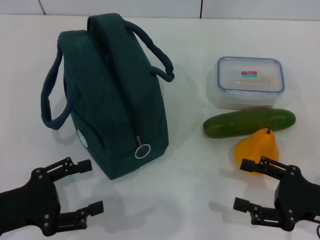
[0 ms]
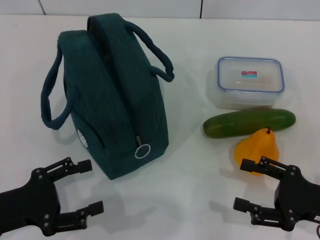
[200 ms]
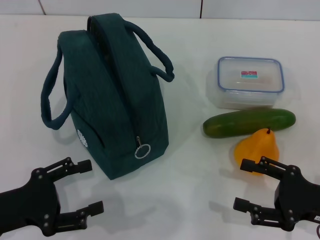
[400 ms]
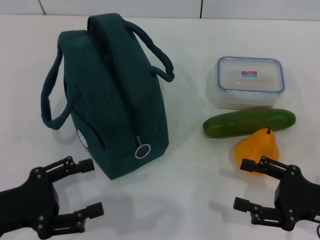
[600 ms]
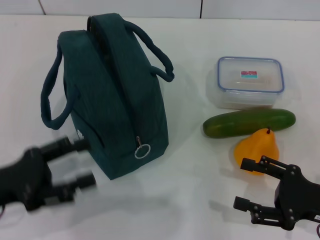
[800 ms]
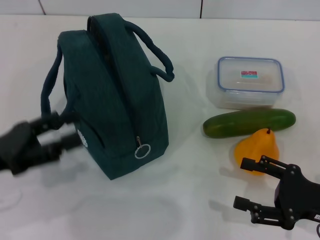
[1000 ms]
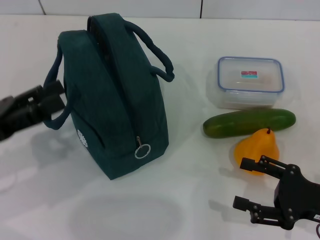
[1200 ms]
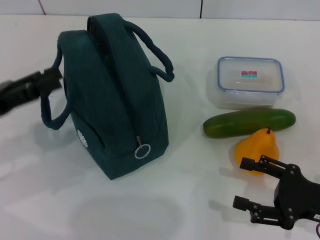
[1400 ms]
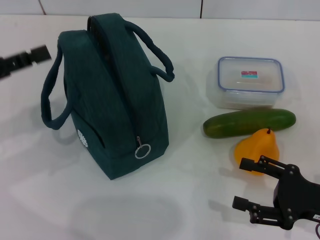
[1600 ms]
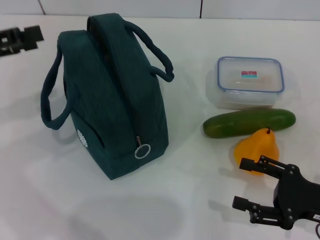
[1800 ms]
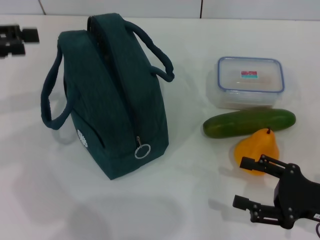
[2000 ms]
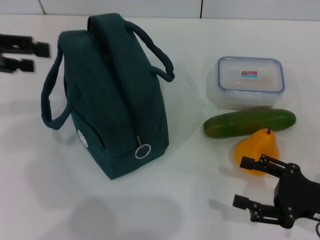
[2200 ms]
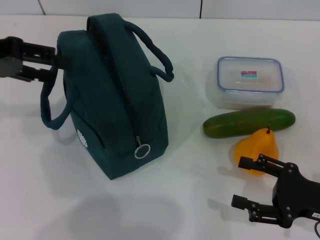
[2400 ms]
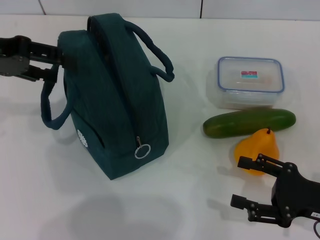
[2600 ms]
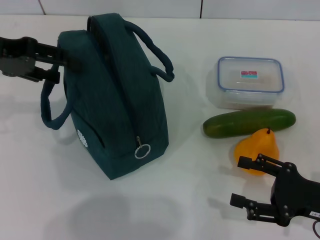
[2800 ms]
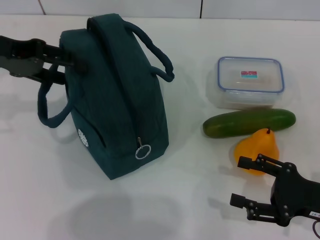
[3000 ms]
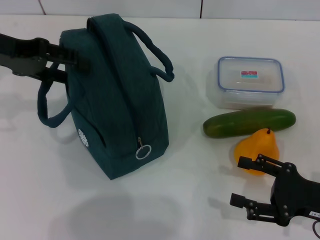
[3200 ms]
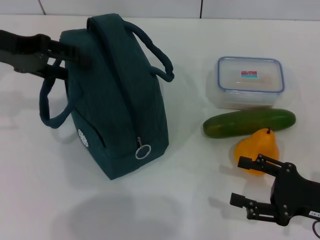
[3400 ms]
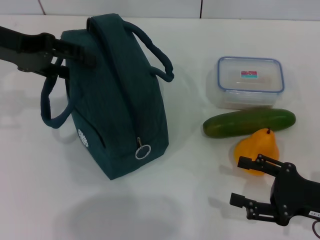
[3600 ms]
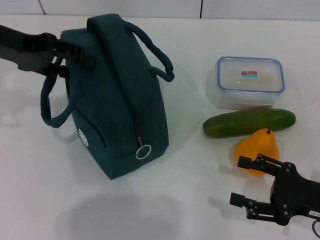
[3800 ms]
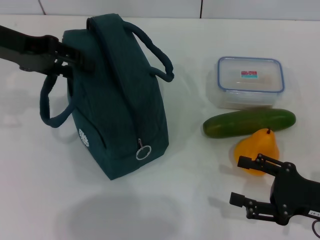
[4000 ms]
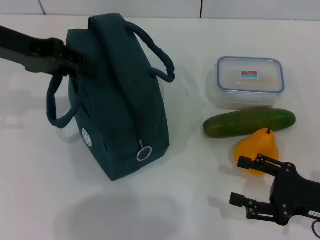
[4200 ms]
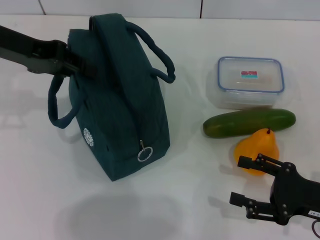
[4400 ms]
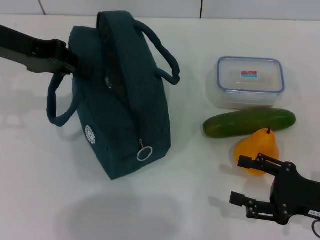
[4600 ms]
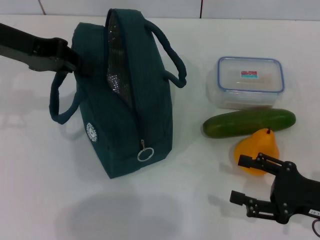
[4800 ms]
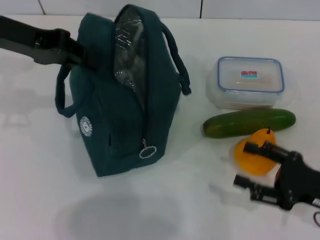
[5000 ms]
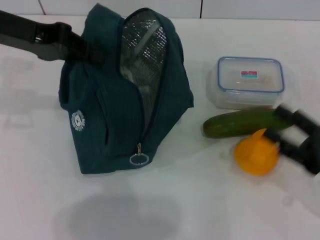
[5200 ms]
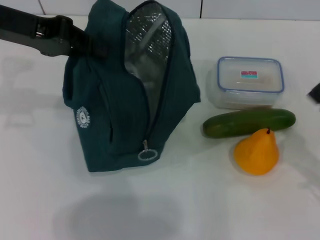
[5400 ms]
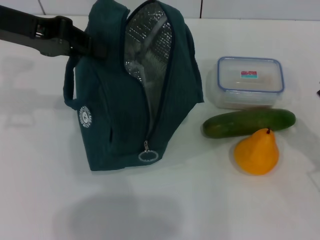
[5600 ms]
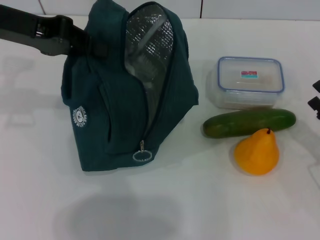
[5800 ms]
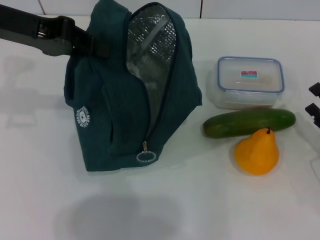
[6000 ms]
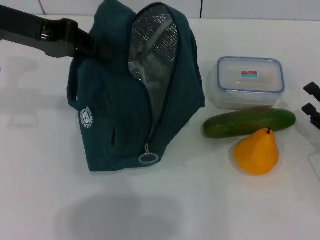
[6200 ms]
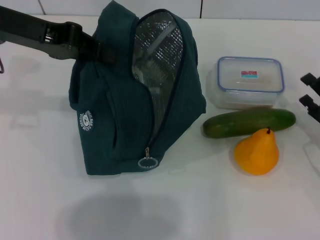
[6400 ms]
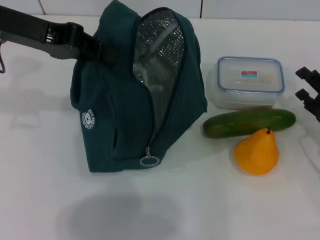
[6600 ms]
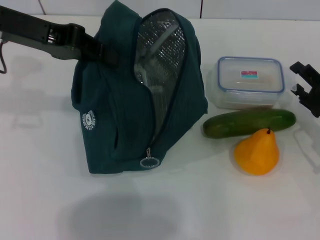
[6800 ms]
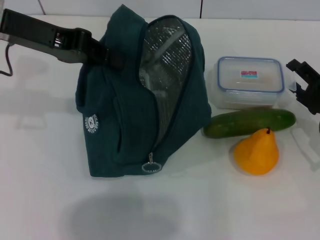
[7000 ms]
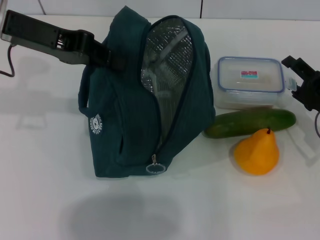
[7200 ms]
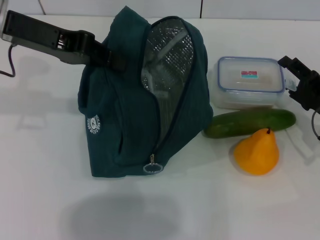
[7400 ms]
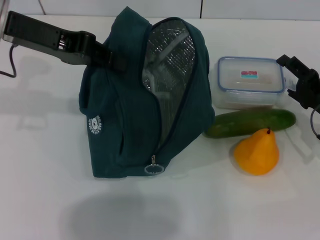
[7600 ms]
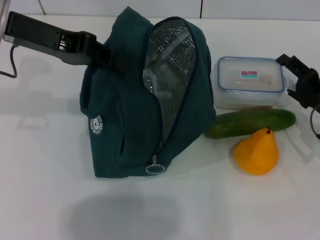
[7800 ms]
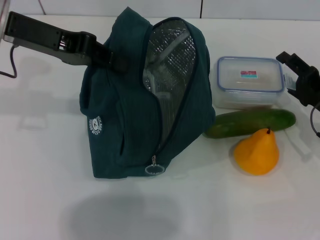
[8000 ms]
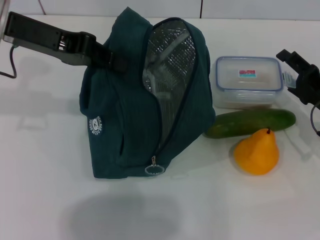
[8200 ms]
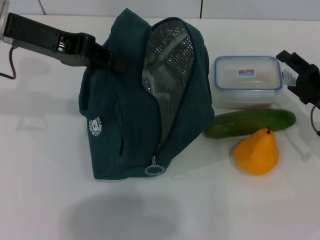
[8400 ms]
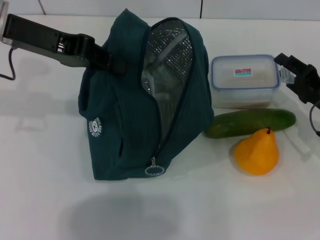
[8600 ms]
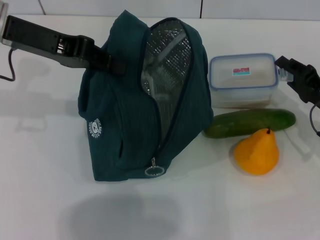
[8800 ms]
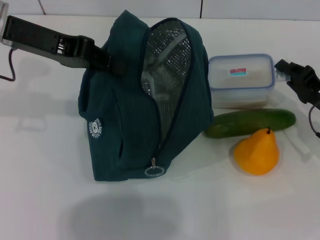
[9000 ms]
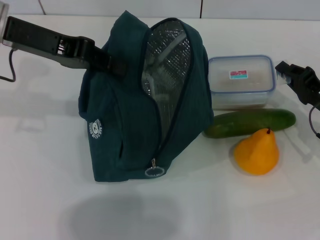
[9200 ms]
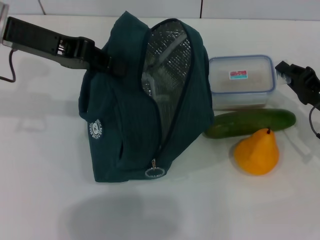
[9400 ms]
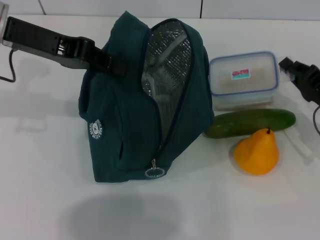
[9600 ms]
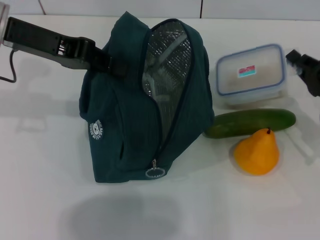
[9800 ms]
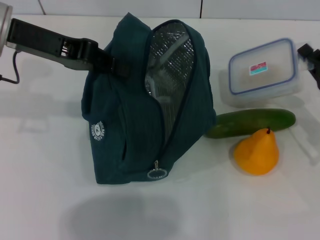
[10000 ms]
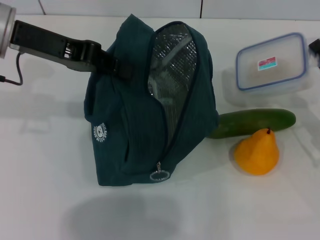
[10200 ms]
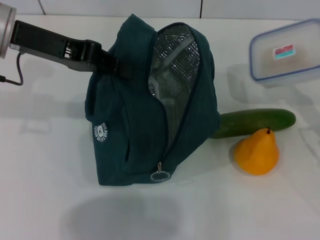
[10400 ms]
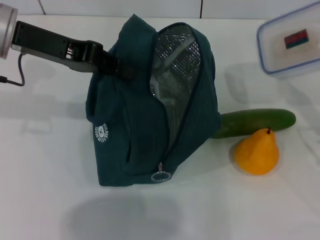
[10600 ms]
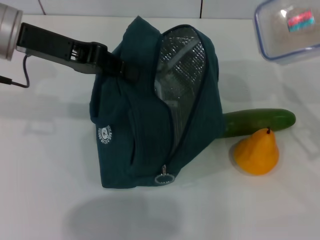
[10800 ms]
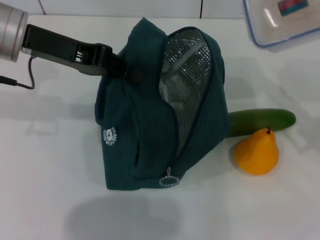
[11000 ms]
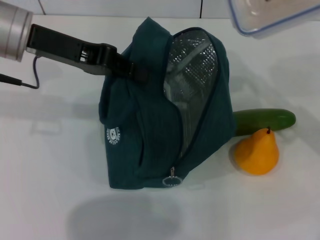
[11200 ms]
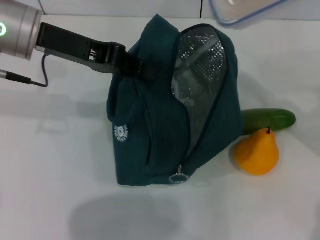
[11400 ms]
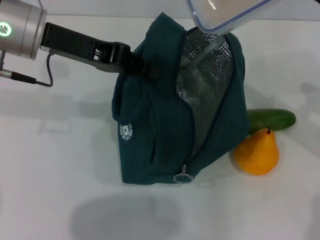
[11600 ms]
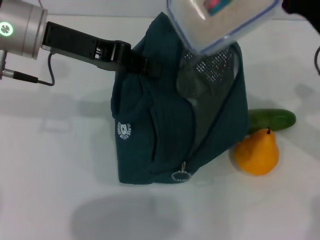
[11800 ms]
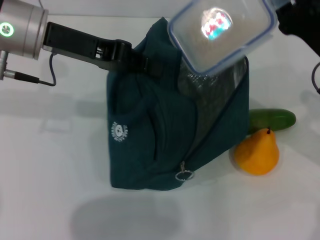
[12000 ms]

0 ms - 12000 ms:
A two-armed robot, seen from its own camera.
Step, 0 ms - 7000 ms: Hold the lunch bag with your left hand.
Step, 7200 ms - 9000 ms: Pick up the lunch box with your right hand.
0 ms - 1600 ms: The left gripper goes approximately 15 cm forward and upward.
1600 ms - 3000 ms: The left gripper heads forward and upward, covering some 10 cm.
3000 ms - 4400 ms: The left gripper closes its fingers.
4400 ms - 6000 ms: The left gripper closes its fingers, while the right gripper moves approximately 5 cm.
6000 ms - 7600 ms: The right gripper travels forward by about 10 cm.
7600 ms - 9000 ms: The right gripper closes.
9000 ms - 10400 ms: The right gripper changes place by approximately 5 cm.
10400 ms - 12000 ms: The right gripper heads to the left and upward, covering some 10 cm.

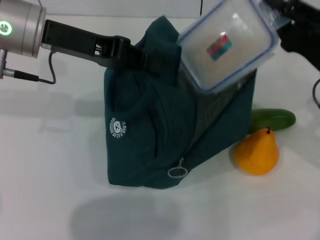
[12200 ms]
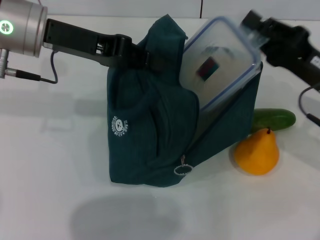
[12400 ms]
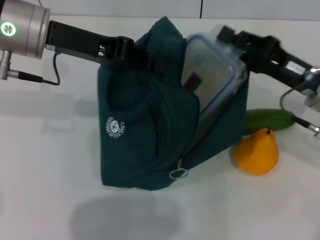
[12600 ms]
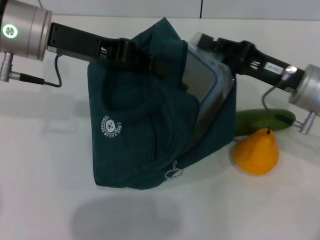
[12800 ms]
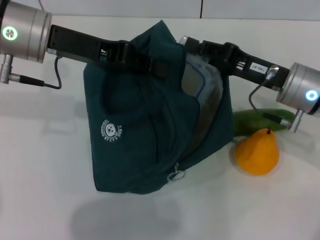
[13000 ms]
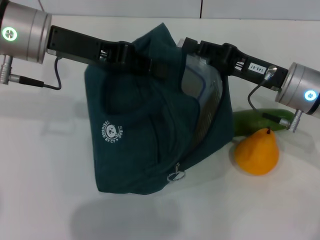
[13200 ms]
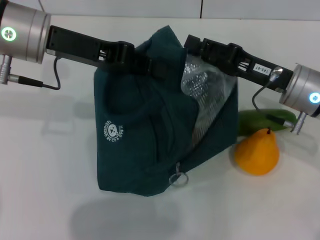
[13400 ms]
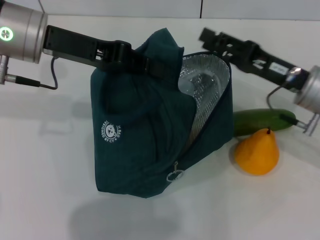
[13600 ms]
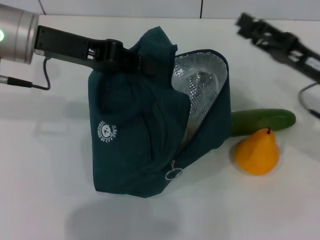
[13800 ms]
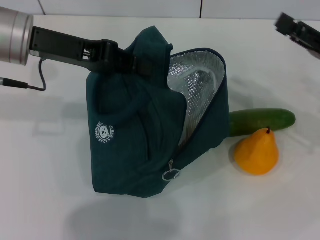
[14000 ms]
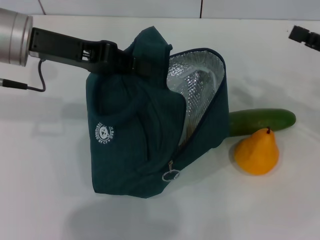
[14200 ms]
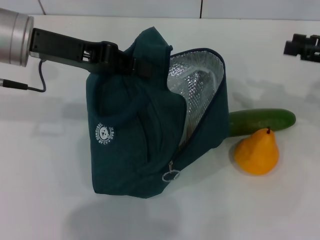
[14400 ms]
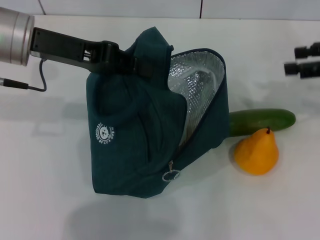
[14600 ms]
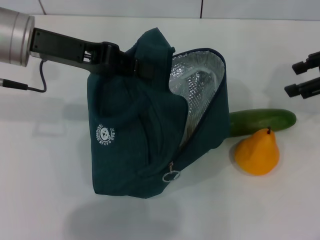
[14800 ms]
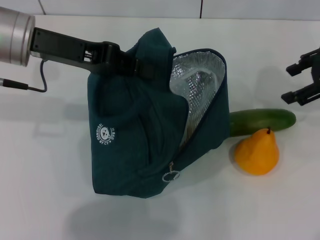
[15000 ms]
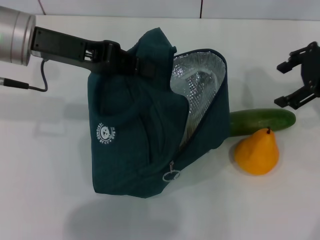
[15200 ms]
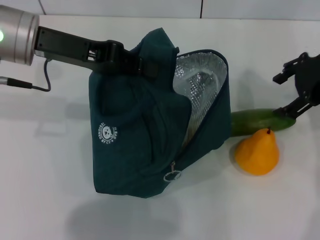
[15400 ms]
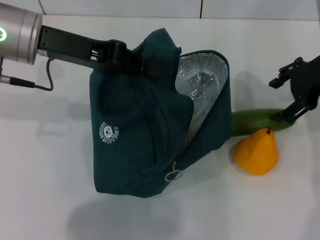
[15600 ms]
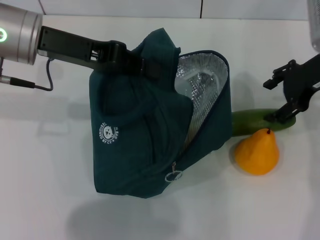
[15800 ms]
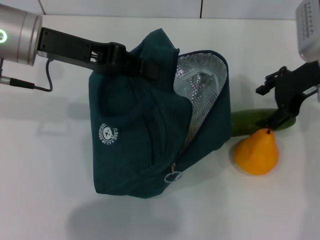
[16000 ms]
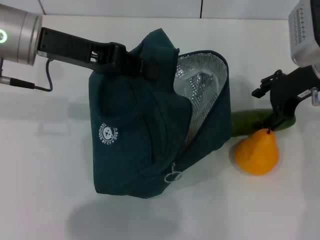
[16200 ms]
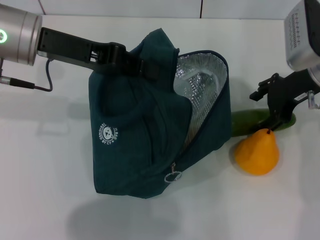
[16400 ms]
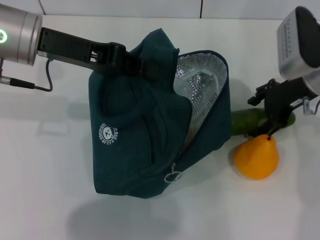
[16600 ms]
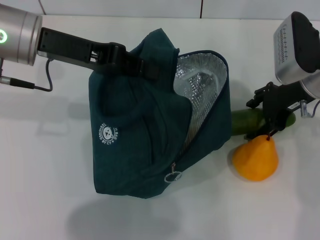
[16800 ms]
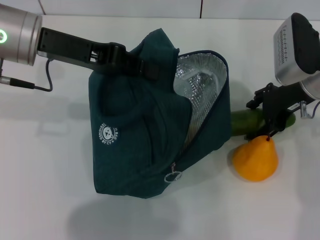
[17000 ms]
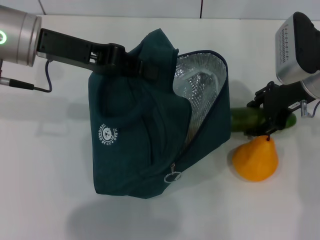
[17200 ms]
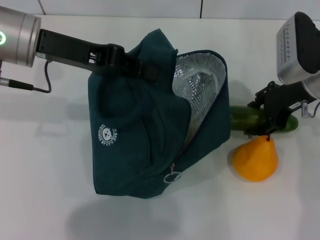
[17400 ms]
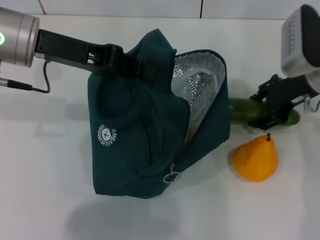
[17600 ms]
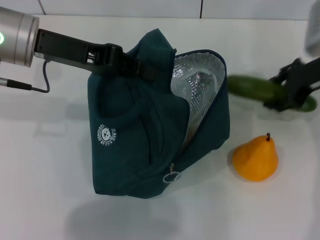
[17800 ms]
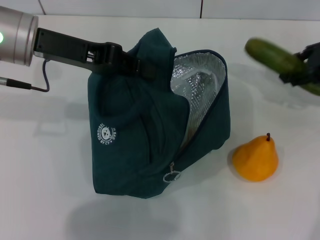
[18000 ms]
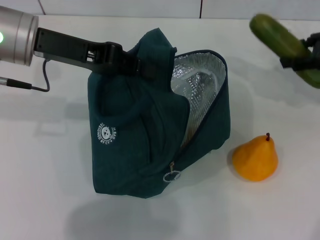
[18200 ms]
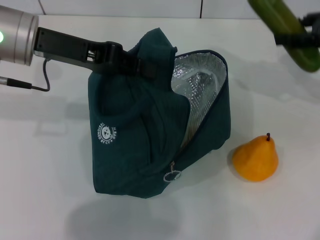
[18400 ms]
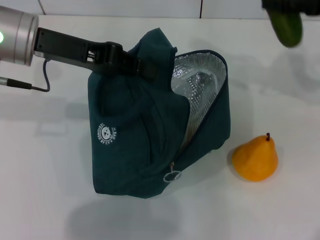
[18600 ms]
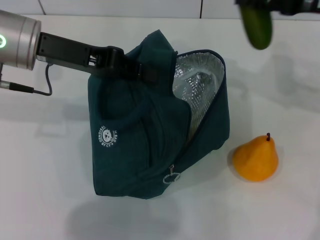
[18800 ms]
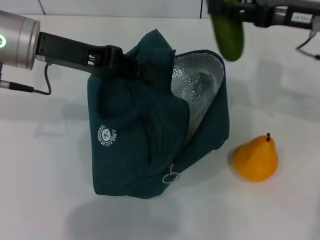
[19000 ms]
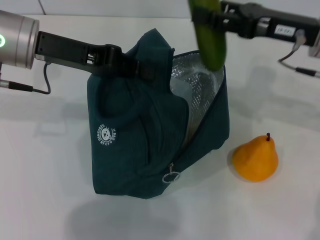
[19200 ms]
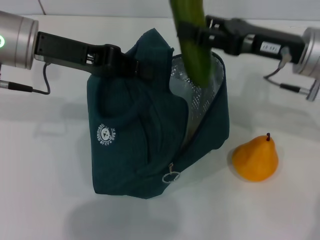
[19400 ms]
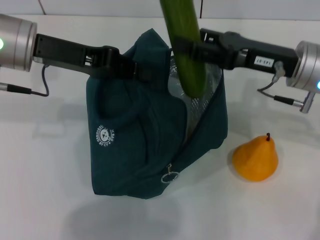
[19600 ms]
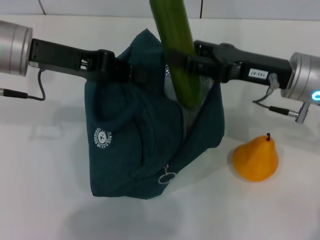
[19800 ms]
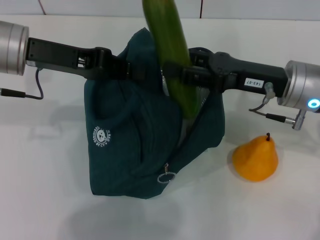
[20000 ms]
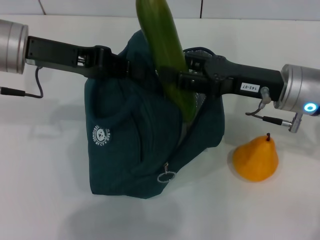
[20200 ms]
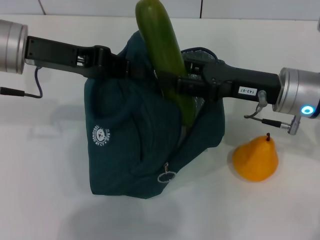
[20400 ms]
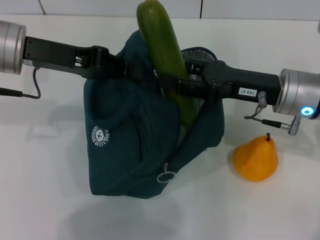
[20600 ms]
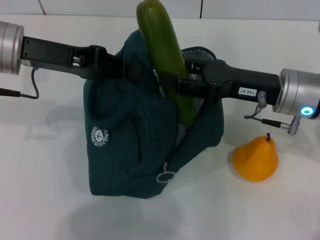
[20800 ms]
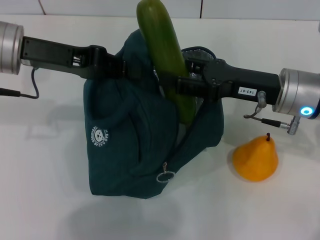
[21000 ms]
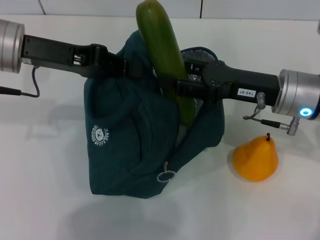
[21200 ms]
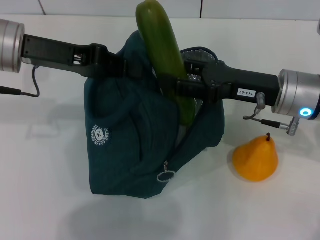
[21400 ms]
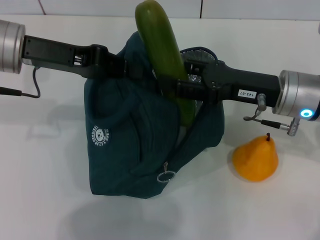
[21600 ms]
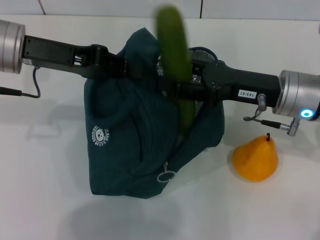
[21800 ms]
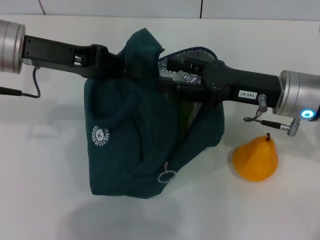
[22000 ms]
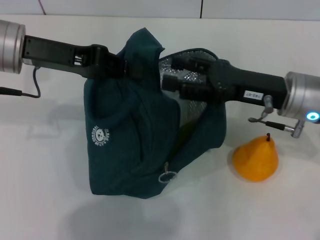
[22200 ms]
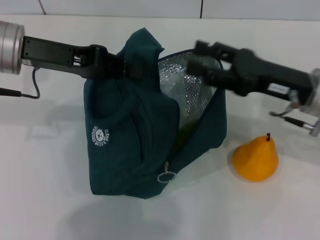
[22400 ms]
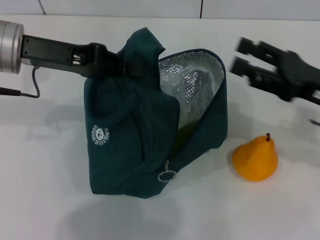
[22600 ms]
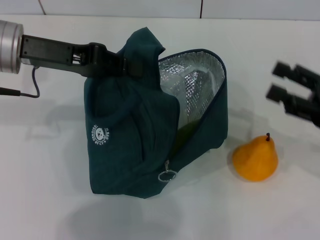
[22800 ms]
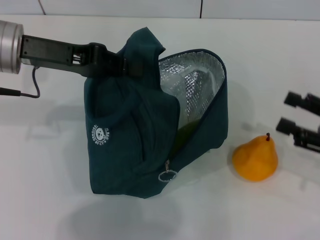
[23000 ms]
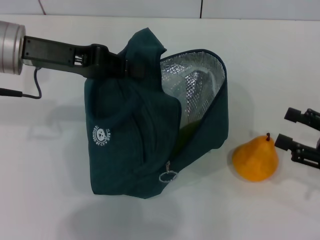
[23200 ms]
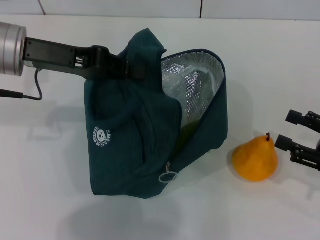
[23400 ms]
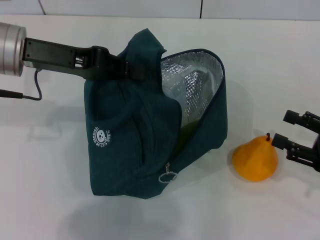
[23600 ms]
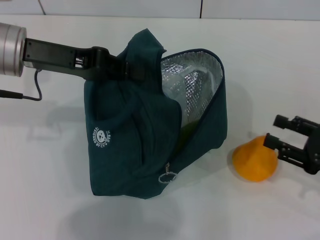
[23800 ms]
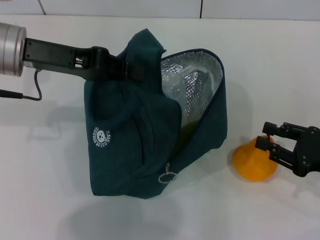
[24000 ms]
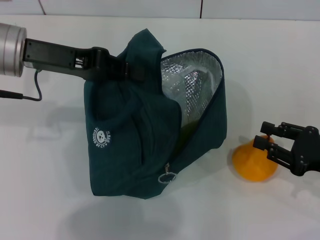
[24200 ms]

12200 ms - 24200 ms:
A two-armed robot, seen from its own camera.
Step, 13600 ms - 17200 ms: Pick up the cucumber with your right hand.
Step, 17400 ms - 22200 ms: Put the cucumber into the lunch bag with your right hand.
12200 ms - 13800 ms: The right gripper opens up.
13800 ms - 15200 ms: The right gripper moves upward and forward, approximately 10 cm.
15200 ms - 16600 ms: The right gripper is displaced downward and to the left by approximately 10 cm.
16600 ms - 18200 ms: The right gripper heads to the right, covering approximately 10 cm.
18200 ms - 19800 ms: The right gripper heads to the left, backward and downward, covering roughly 15 cm.
19800 ms - 21200 ms: The grippers move only a little.
21200 ms - 22600 ms: The right gripper shifts about 10 cm to the right.
22600 ms - 24200 ms: The right gripper heads downward and backward, covering roughly 10 cm.
